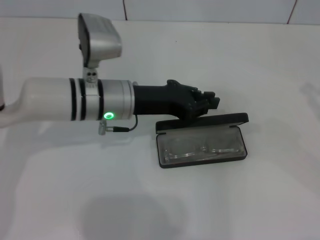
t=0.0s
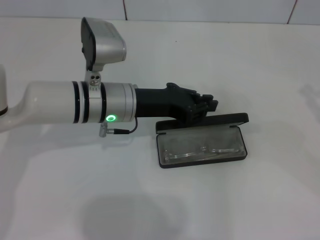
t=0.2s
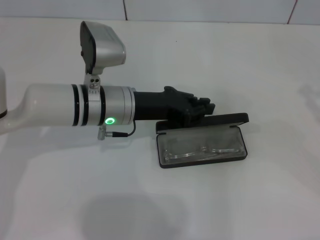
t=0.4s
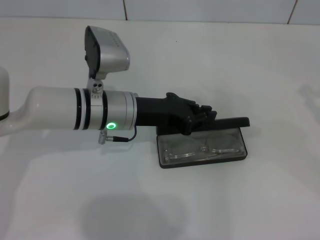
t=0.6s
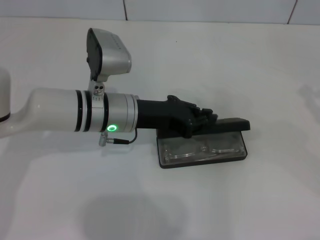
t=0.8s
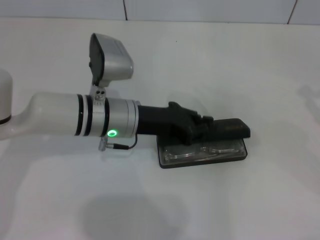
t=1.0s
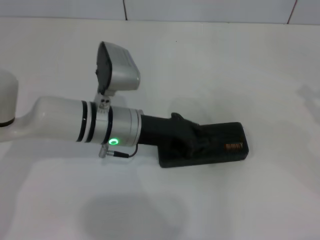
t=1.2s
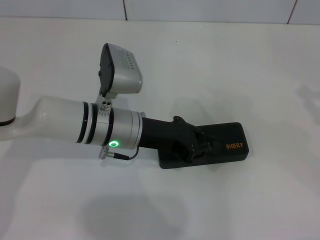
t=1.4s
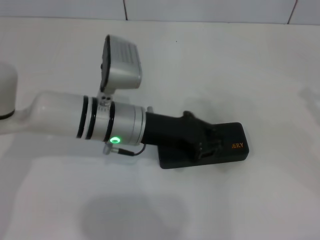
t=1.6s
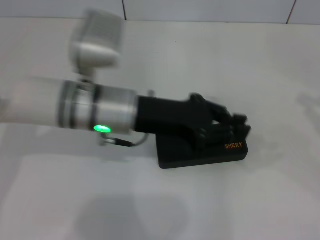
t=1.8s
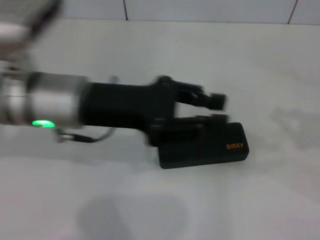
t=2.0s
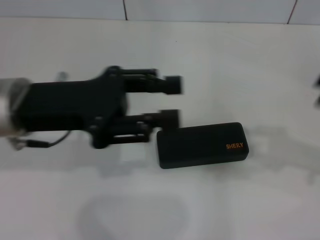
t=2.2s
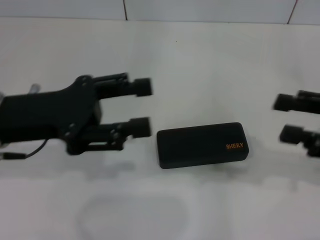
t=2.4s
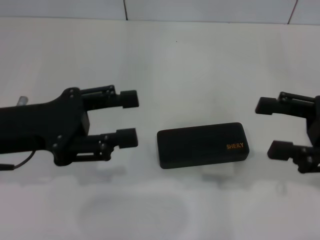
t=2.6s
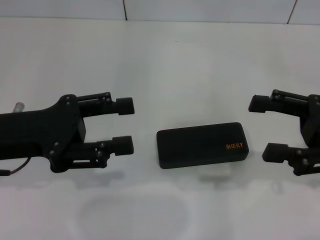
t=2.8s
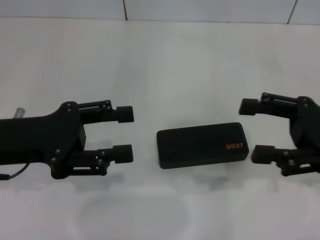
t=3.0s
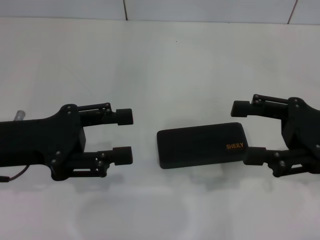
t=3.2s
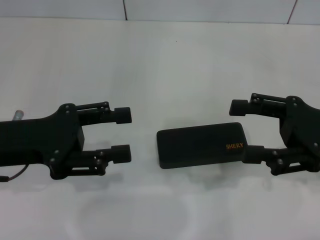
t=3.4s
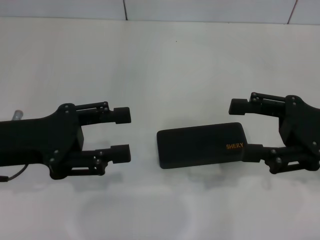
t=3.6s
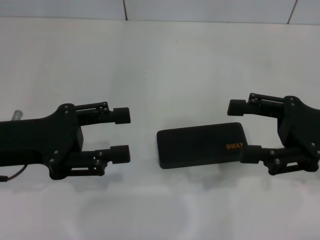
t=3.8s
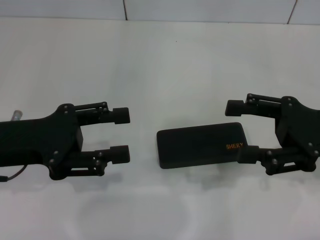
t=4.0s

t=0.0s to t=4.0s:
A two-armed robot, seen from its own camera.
t=0.0s to t=1.4s: There are only small adjustments of the grippers.
t=1.4s to t=2.6s: The right gripper moves to the left, some 10 cm, and opens its fingers, while the left gripper moves to the left, upward and backward, about 20 cm, and opens up.
t=2.6s to t=4.0s: There are only small adjustments of the grippers.

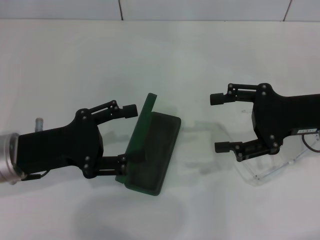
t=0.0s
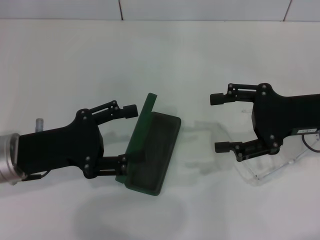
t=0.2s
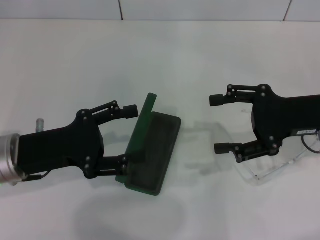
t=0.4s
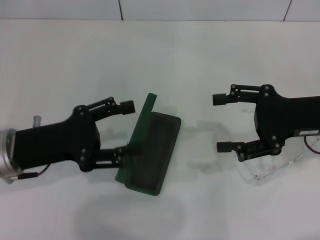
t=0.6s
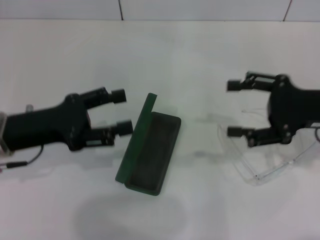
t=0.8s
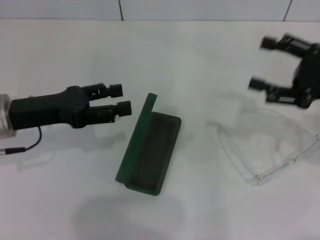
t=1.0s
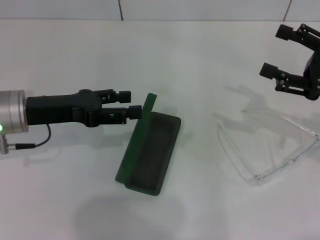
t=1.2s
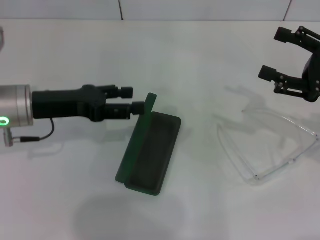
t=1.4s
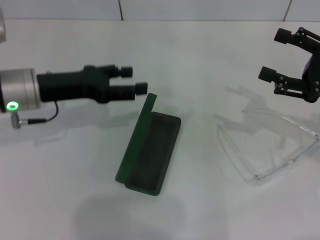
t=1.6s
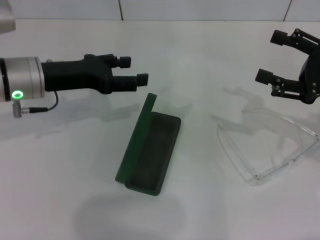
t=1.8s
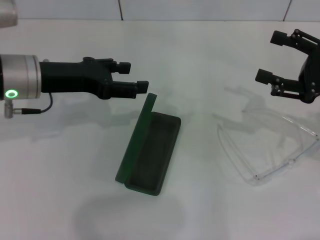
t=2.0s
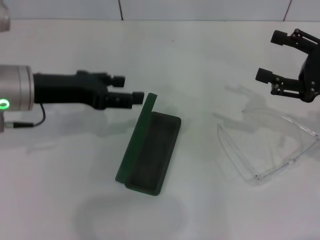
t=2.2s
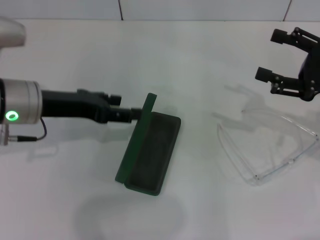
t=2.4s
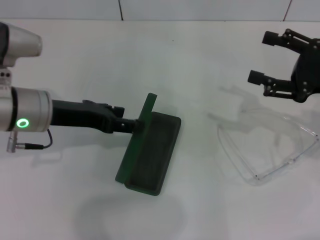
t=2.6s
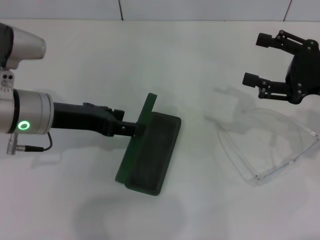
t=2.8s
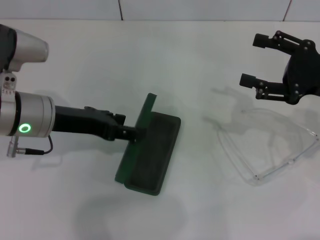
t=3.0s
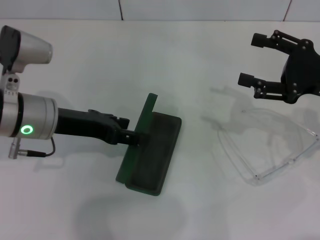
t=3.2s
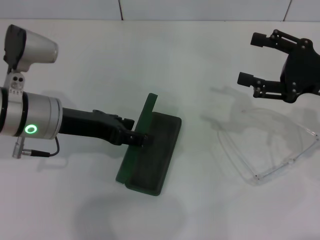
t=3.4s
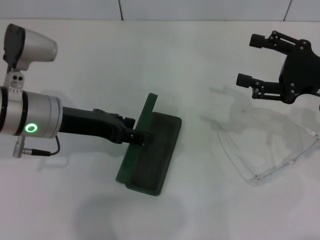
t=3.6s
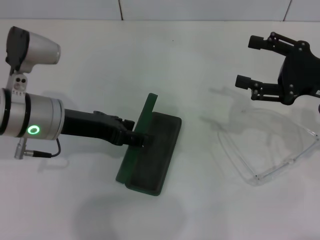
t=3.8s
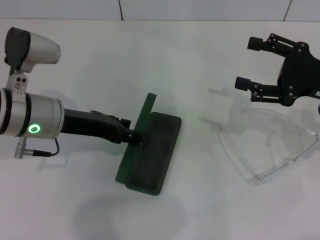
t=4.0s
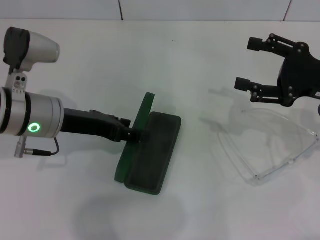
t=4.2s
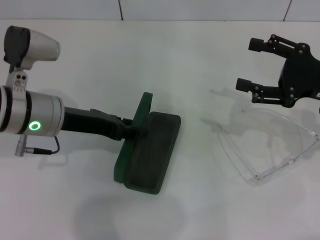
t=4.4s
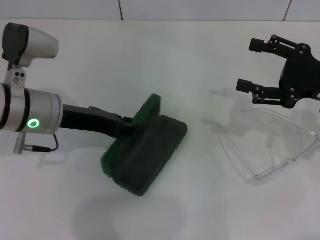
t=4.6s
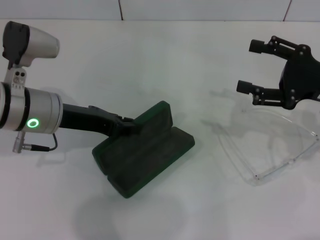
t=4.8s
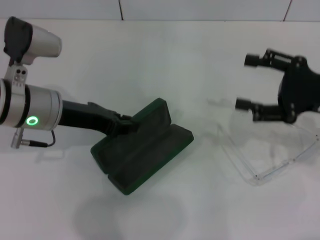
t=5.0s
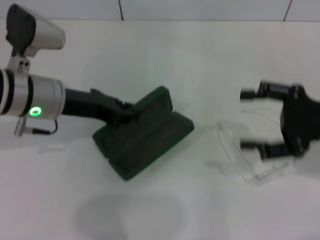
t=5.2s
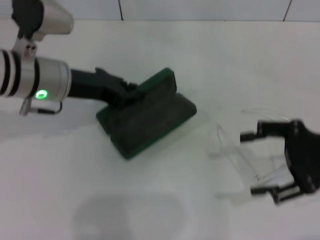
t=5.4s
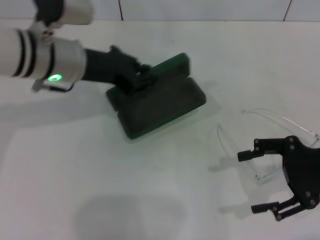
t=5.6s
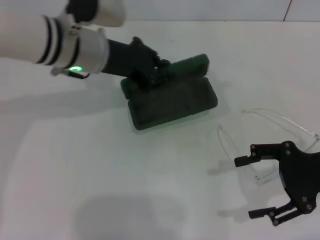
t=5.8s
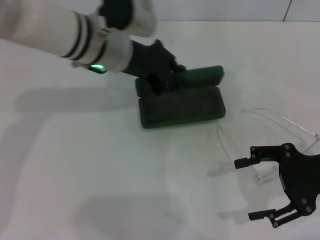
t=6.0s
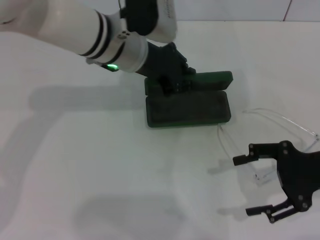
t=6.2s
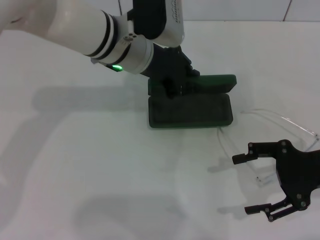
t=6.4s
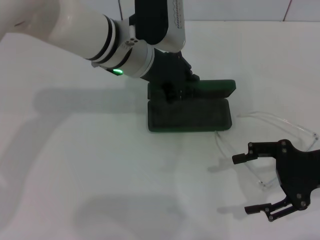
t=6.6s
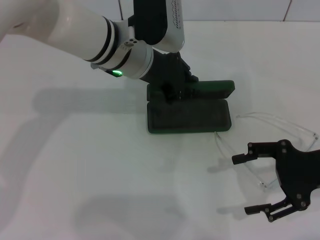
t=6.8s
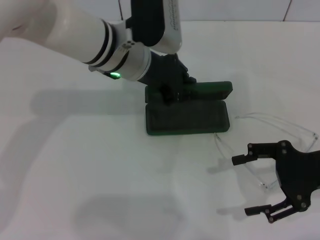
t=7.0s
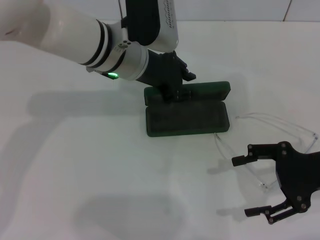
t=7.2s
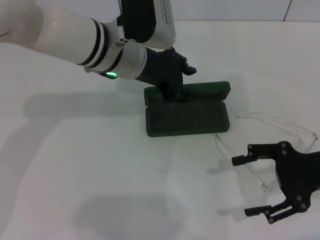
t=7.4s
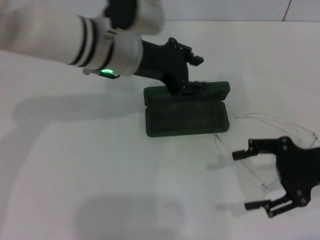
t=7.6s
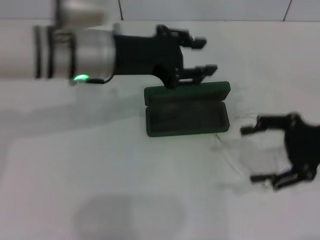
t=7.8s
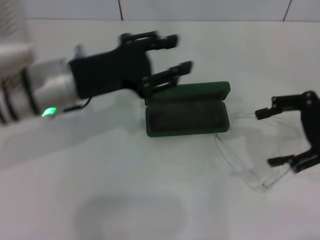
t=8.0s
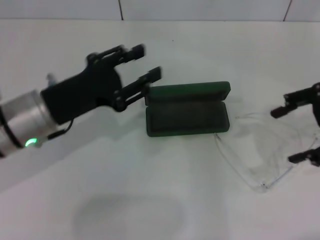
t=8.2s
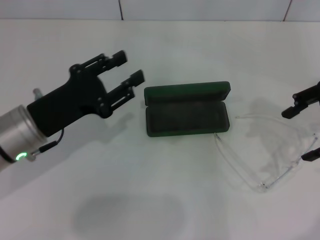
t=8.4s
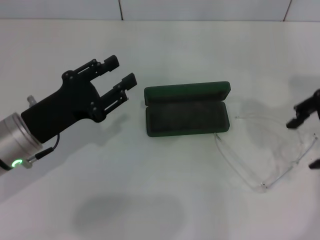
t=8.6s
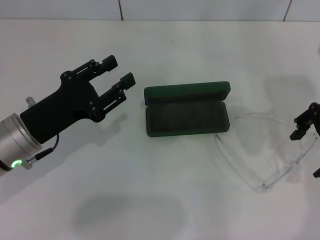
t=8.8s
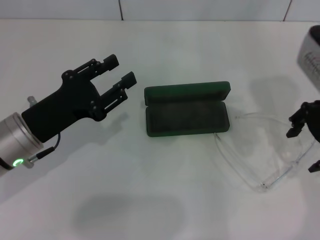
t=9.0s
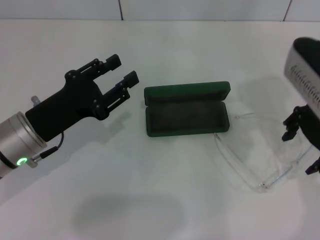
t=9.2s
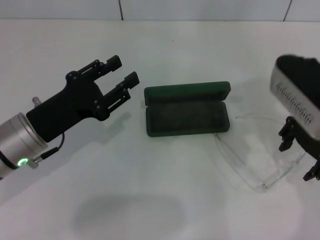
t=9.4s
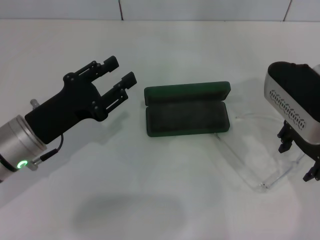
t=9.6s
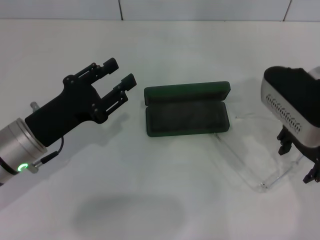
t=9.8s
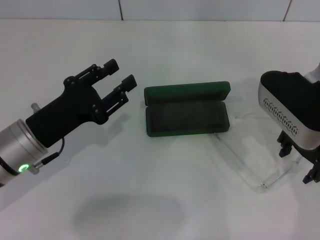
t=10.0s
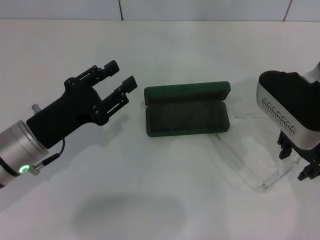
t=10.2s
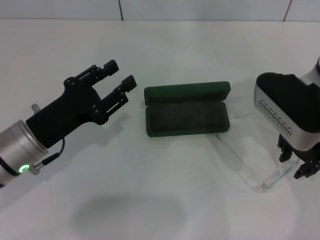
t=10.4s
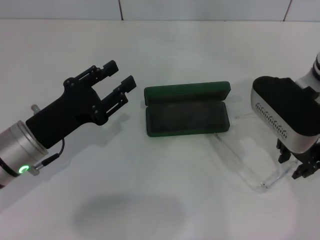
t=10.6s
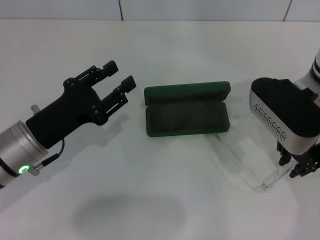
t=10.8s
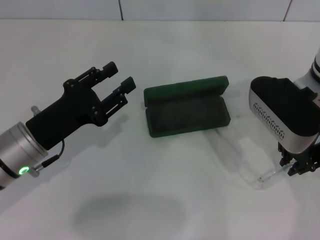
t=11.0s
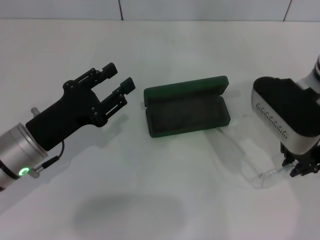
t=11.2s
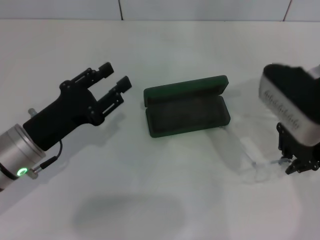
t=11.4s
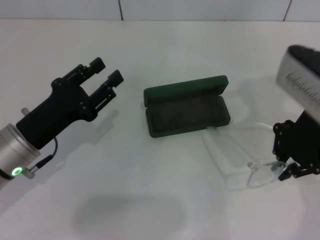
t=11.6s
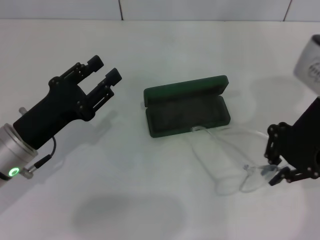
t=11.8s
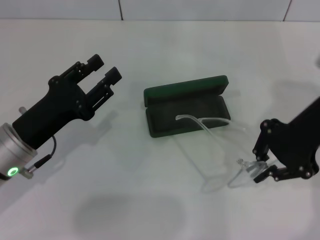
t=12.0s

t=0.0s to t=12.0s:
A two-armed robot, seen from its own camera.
Step, t=0.0s to t=4.8s: Grab the glasses case with your left hand.
Step, t=5.0s to t=7.0s: Place the glasses case in the center of the table with your left hand.
Step, t=7.4s to t=11.2s: Grab the eyeglass frame with your right hand.
t=0.0s to t=1.6s: The right gripper moves to the right, approximately 5 cm; the left gripper shifts approximately 10 cm forward.
t=3.0s to t=4.4s: Both grippers stay about where they are.
t=4.4s to t=6.0s: The left gripper shifts about 10 cm to the right and forward, and closes up. The right gripper shifts about 5 cm backward.
t=6.0s to t=7.6s: The left gripper opens up.
t=7.6s to t=9.0s: The left gripper shifts roughly 20 cm to the left, backward and downward. Meanwhile the right gripper is displaced upward, forward and to the left by about 15 cm.
t=9.0s to t=10.4s: The right gripper ends up some 5 cm from where it was.
t=10.4s to t=12.0s: The right gripper ends up roughly 5 cm from where it was, and closes.

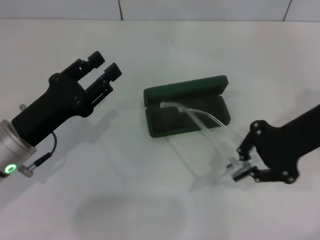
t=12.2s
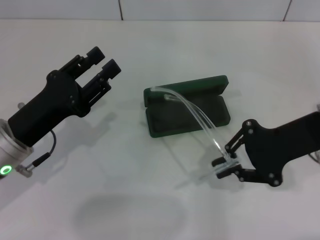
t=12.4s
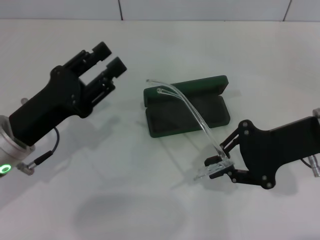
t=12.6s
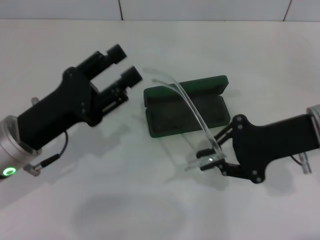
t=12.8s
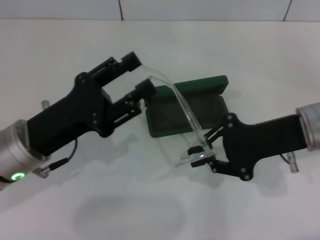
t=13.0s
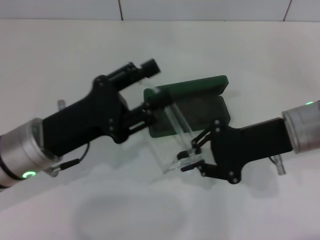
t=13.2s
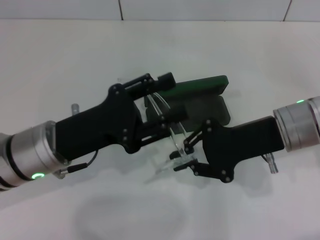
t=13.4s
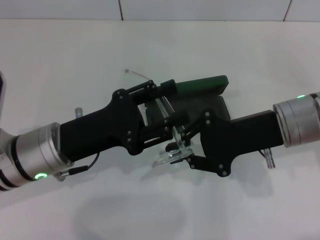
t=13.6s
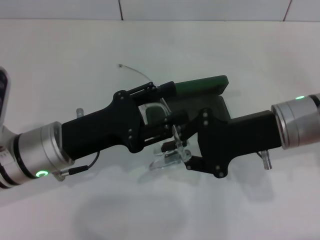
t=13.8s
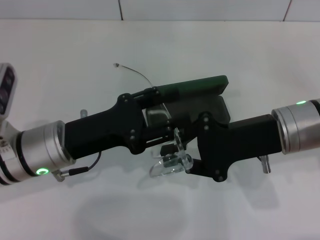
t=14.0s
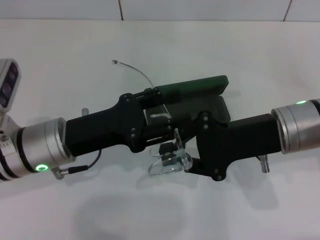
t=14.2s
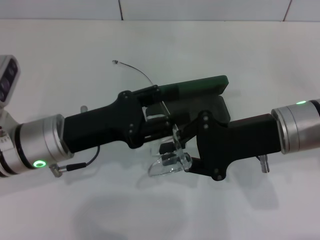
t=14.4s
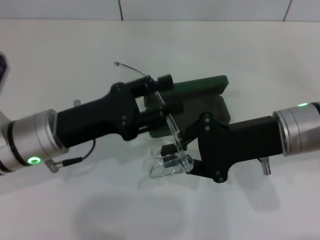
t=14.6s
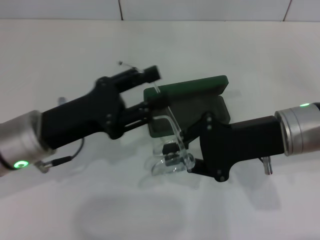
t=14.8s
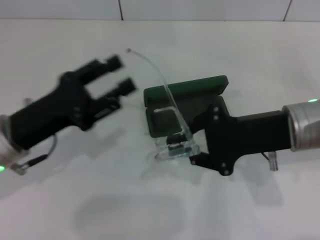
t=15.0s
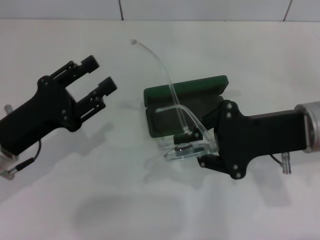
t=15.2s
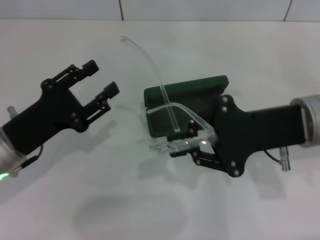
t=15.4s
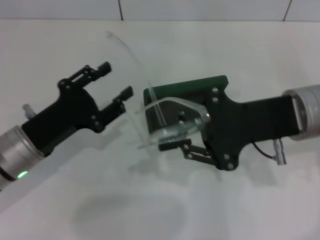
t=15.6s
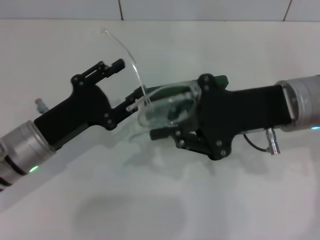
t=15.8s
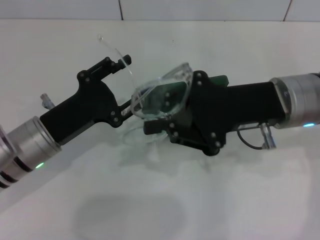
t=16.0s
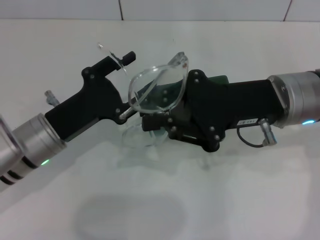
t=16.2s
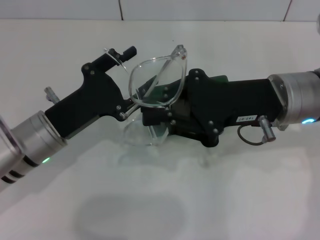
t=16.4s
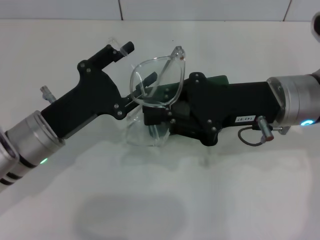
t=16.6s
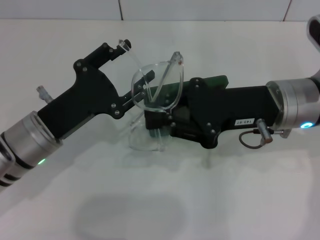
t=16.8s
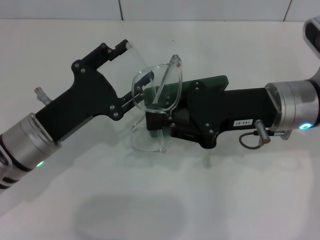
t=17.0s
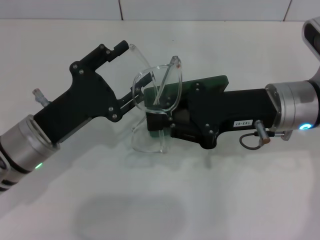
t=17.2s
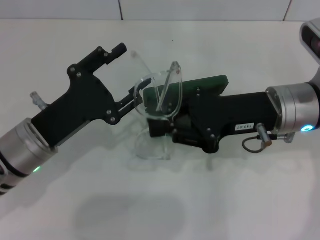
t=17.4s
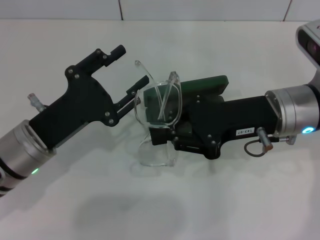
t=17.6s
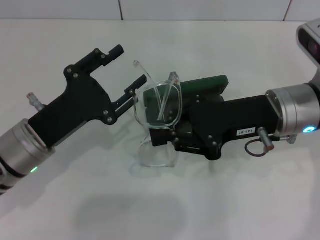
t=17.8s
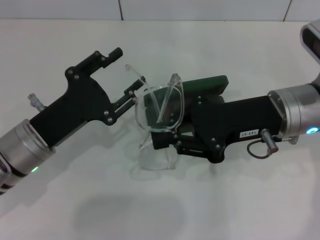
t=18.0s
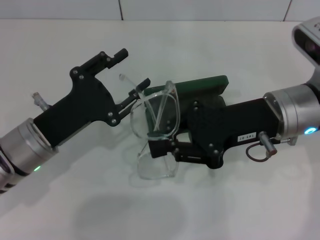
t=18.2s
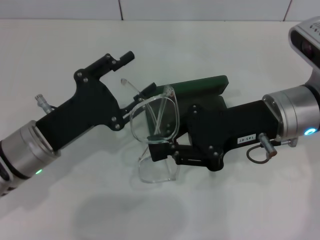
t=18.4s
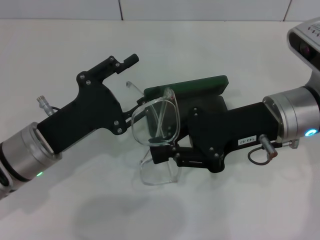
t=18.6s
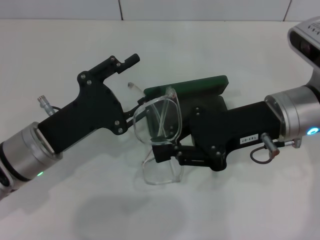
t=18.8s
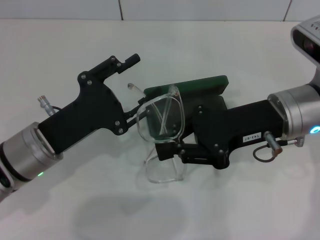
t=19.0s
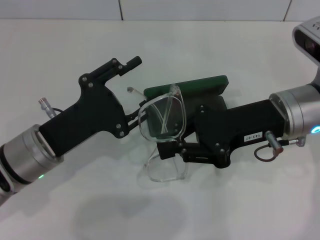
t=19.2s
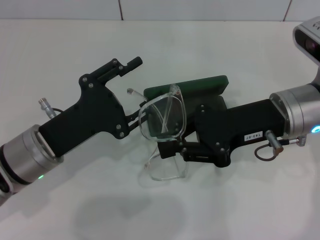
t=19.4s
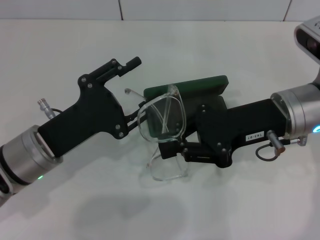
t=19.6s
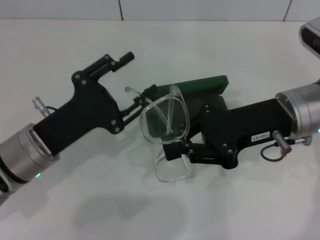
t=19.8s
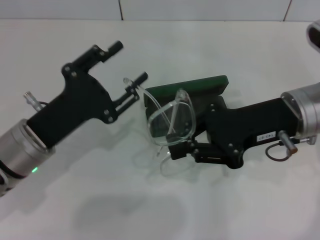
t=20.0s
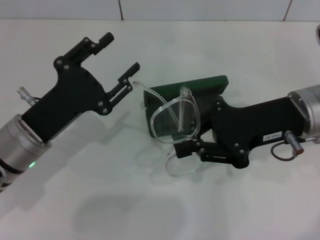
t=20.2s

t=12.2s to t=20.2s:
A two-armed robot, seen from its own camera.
t=12.2s to t=13.8s: The right gripper shifts by approximately 5 cm; the left gripper ends up about 5 cm from where it was.
t=13.8s to t=15.4s: The left gripper shifts some 5 cm to the left.
